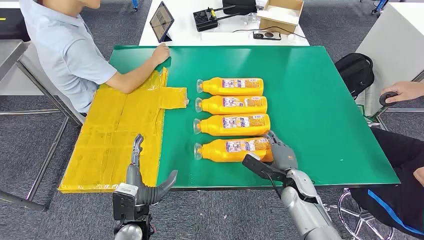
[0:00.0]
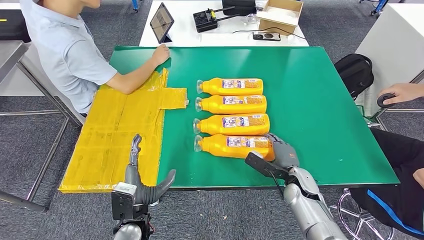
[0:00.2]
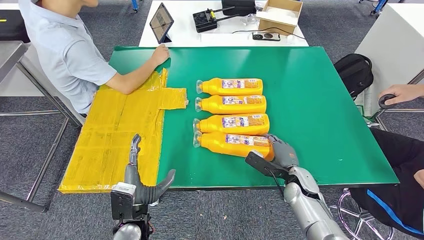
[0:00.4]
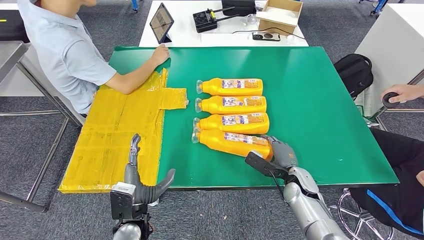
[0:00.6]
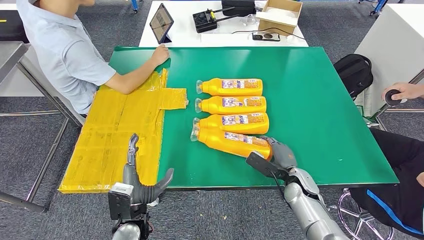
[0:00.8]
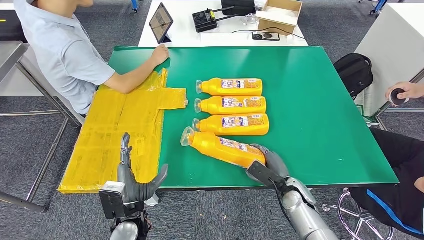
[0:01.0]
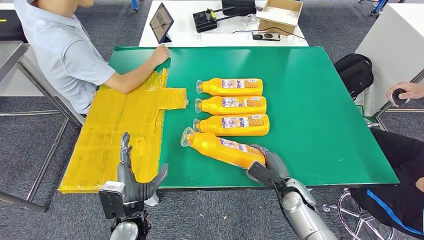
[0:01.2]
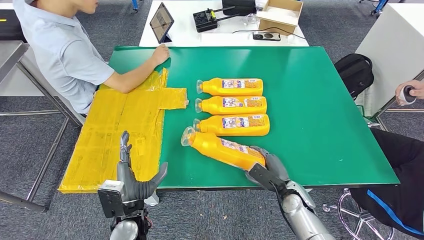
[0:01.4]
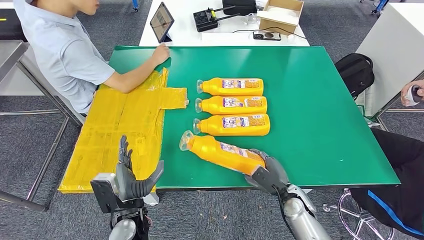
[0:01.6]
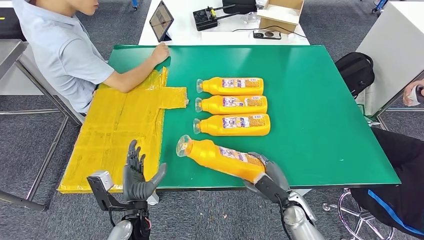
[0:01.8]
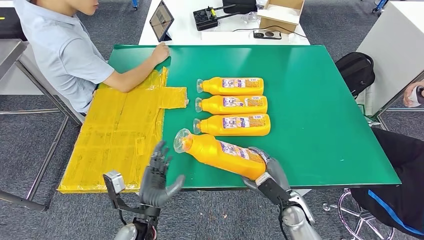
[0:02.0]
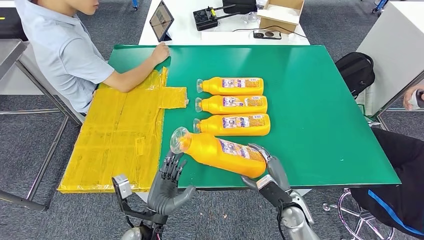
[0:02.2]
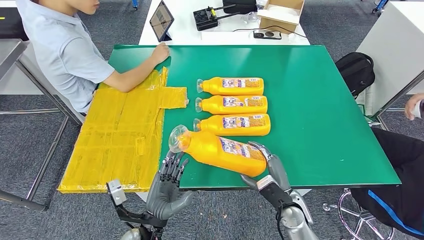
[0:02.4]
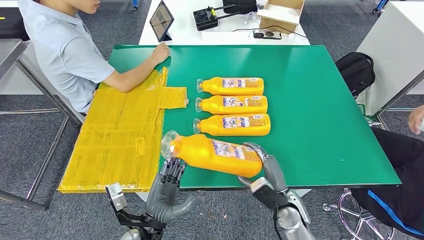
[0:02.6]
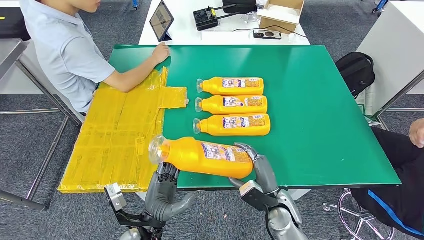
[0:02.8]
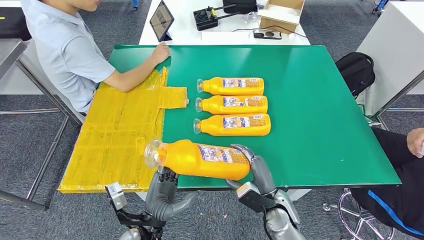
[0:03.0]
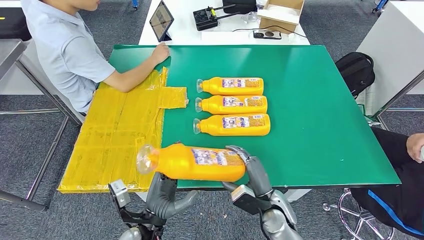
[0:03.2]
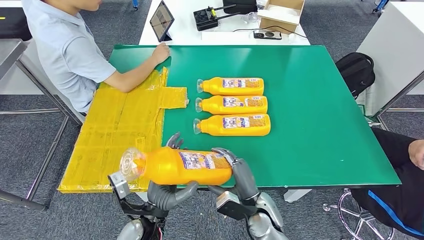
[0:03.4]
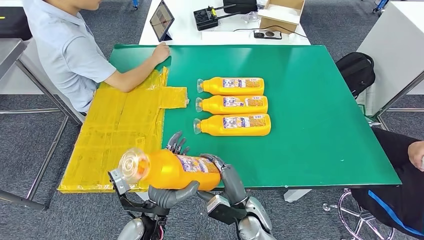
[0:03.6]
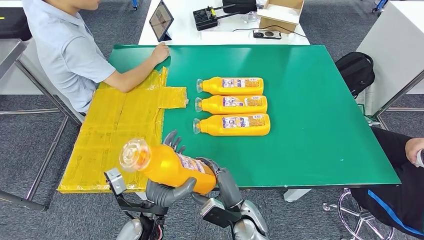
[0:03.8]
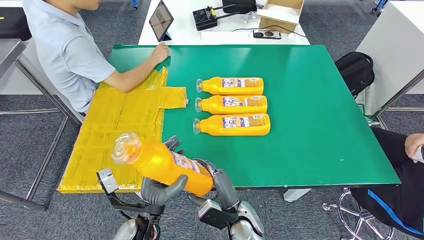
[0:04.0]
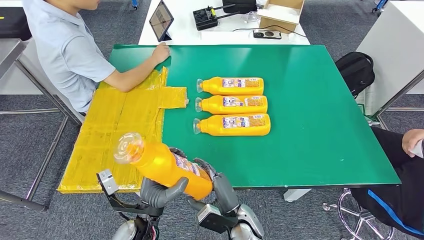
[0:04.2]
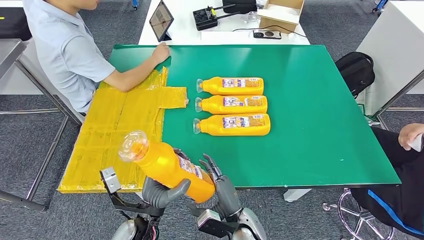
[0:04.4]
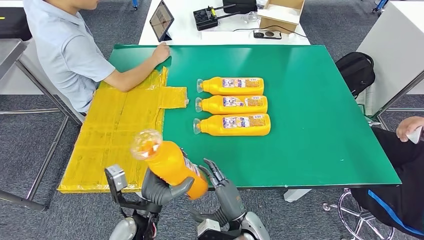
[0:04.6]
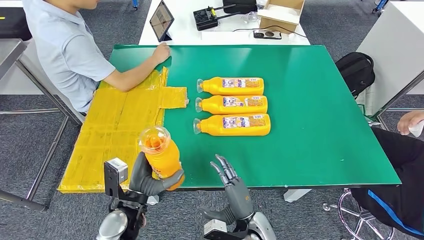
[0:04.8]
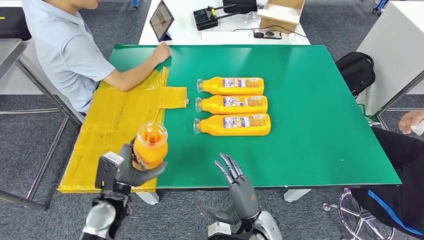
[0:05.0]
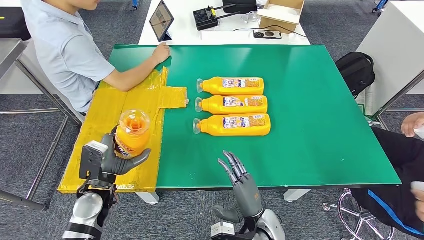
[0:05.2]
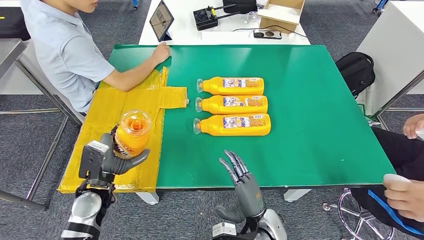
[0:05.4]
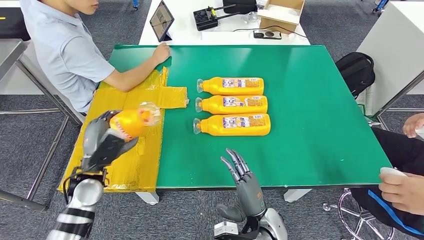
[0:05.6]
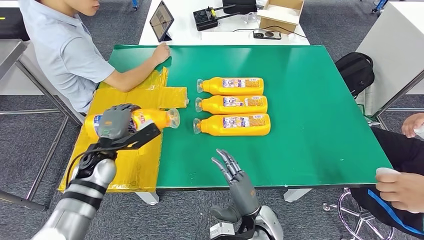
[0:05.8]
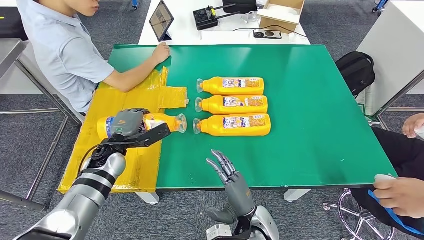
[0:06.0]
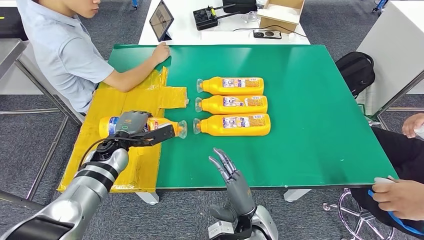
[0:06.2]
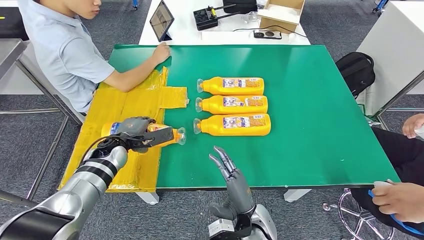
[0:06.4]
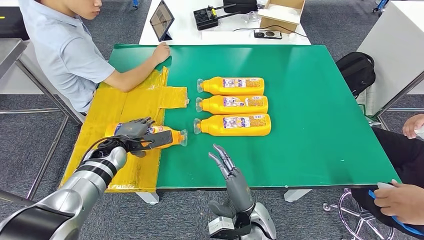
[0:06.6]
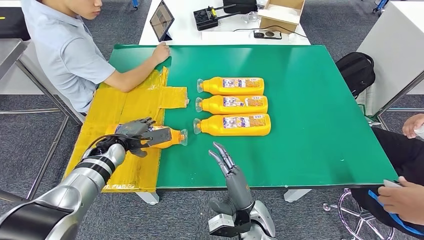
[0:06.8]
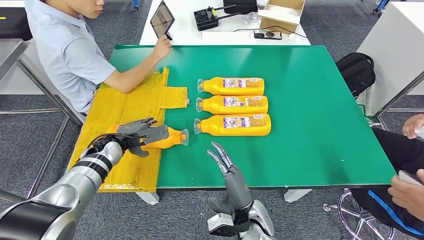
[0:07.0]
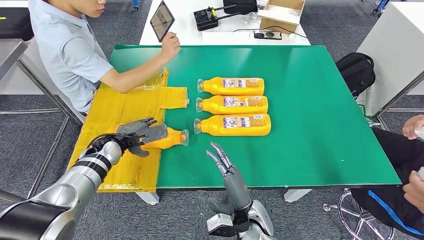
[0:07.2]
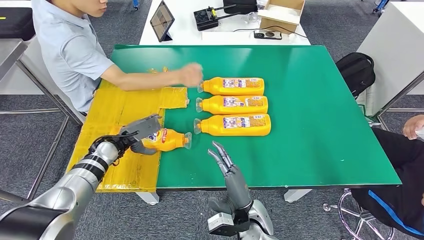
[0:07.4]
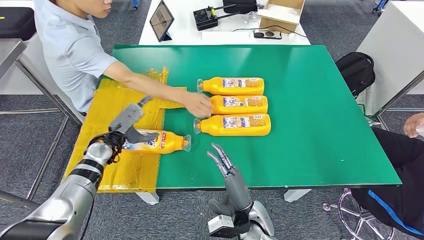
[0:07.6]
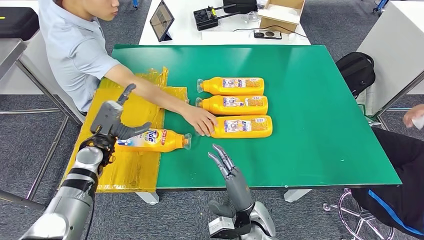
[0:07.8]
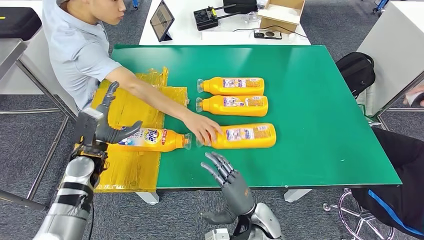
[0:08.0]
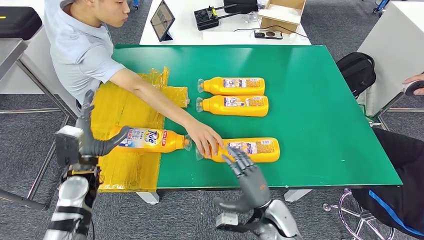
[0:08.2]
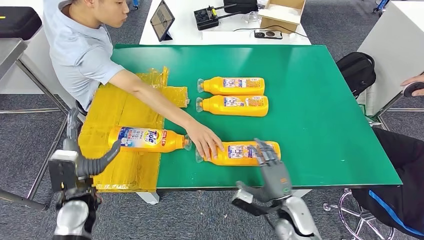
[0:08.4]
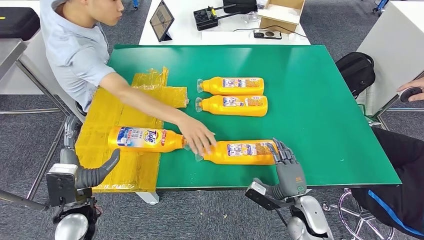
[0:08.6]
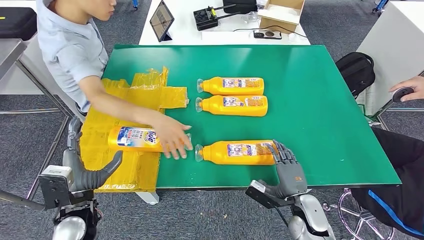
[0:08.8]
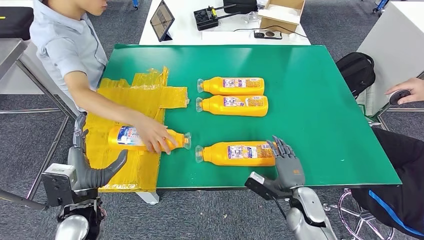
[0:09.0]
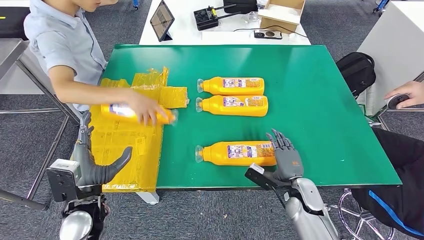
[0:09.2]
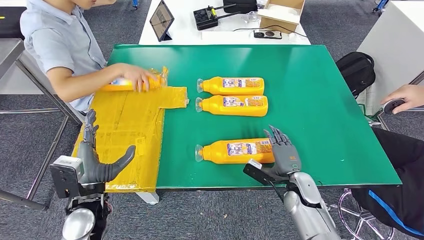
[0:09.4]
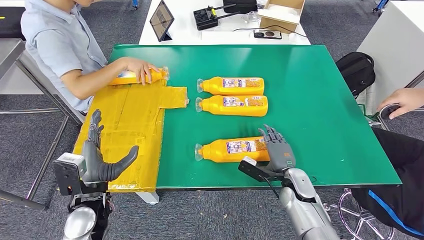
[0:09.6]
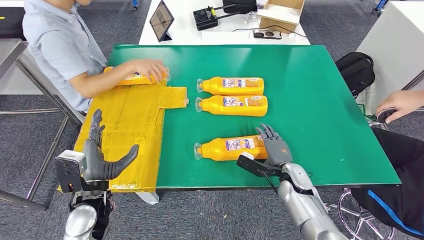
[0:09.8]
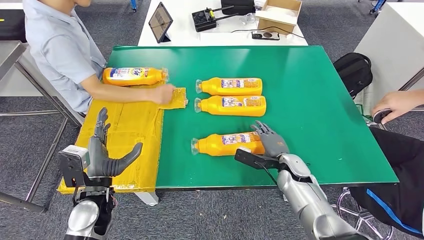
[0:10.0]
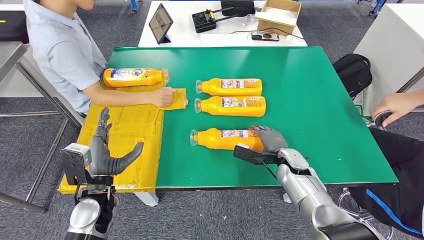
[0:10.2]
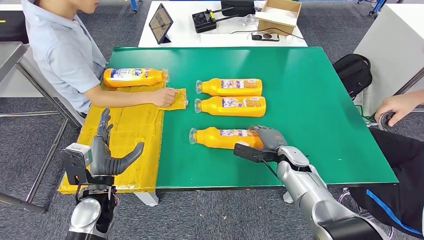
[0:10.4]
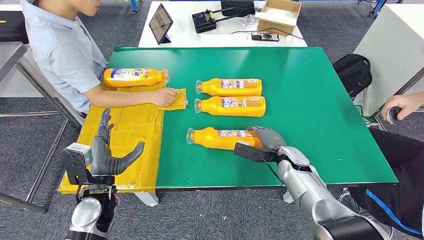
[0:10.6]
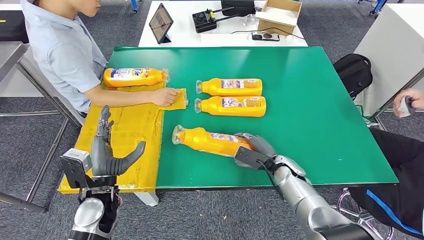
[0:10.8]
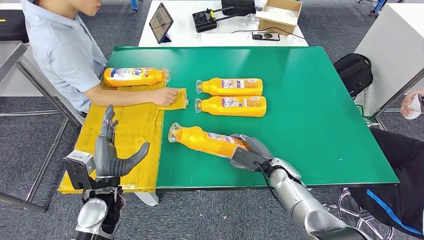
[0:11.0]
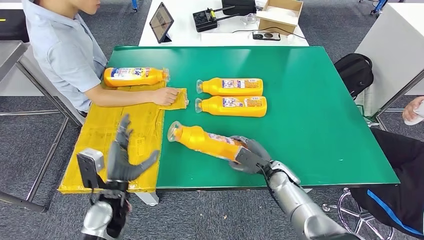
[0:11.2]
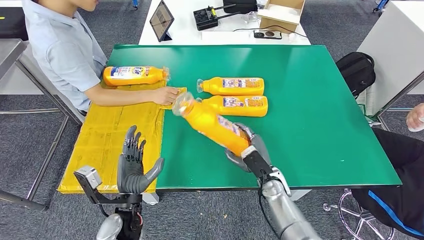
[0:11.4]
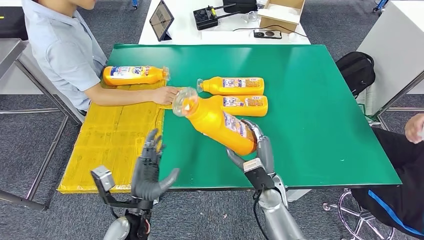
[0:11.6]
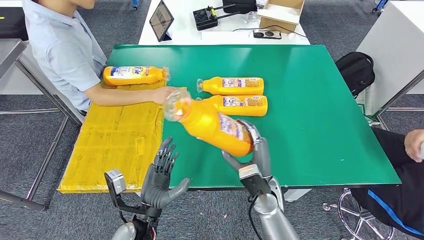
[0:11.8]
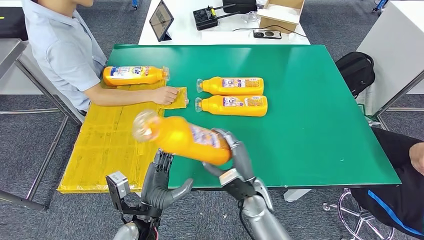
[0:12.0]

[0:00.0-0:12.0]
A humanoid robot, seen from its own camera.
Step, 0:00.0 to 0:03.4: Take the bottle from the table.
Step, 0:03.6 to 0:07.8: Flip the bottle to face forward.
0:01.6 to 0:03.0: The right hand shifts roughly 5 cm to the left.
0:03.0 to 0:04.4: The right hand heads to the left, covering about 10 cm.
0:04.4 to 0:06.0: The left hand travels forward and to the left by some 20 cm.

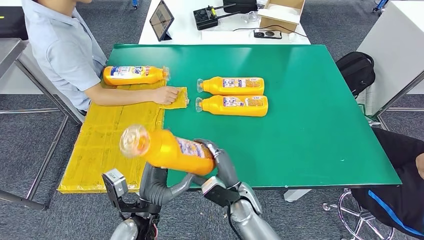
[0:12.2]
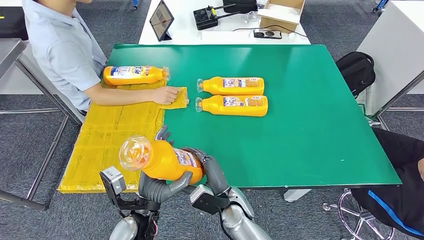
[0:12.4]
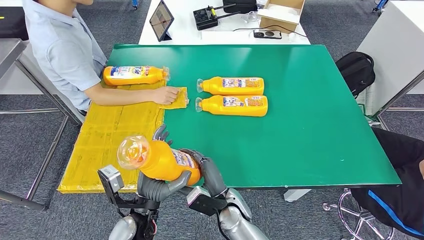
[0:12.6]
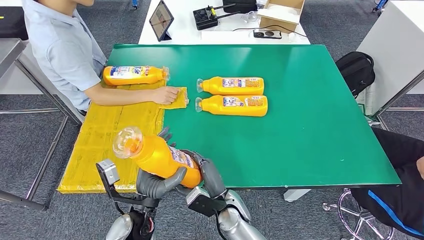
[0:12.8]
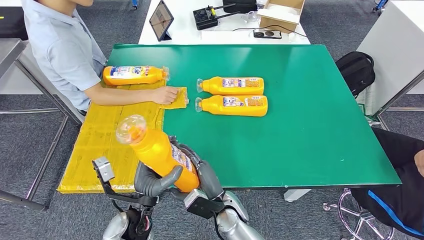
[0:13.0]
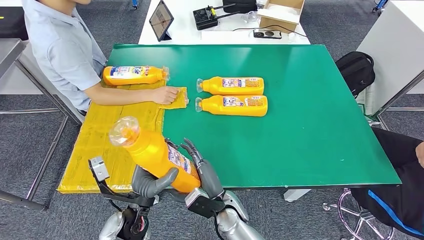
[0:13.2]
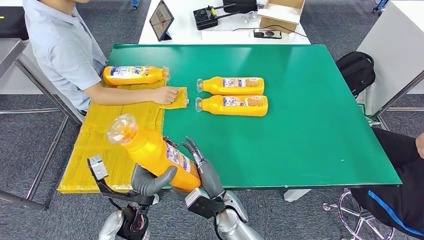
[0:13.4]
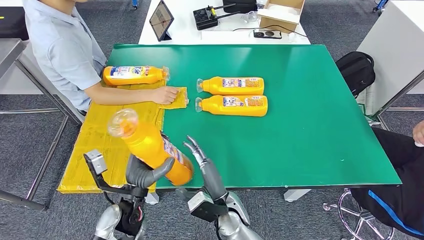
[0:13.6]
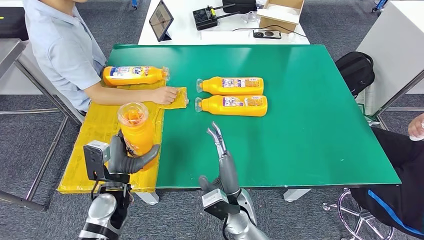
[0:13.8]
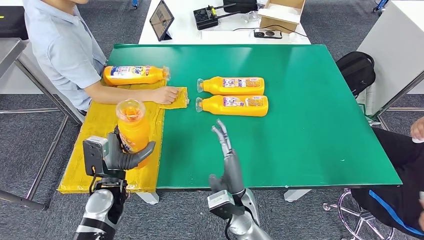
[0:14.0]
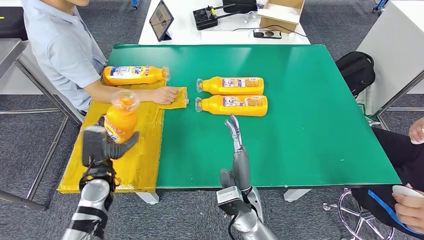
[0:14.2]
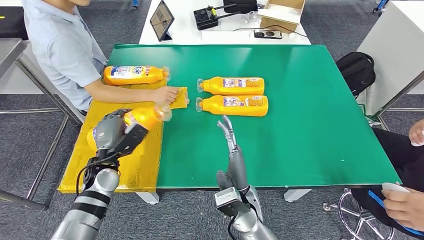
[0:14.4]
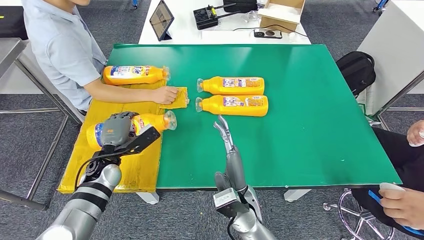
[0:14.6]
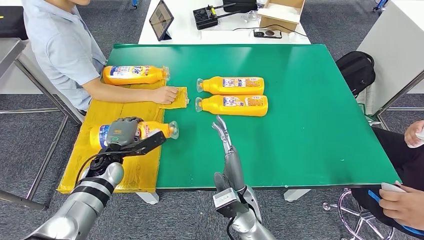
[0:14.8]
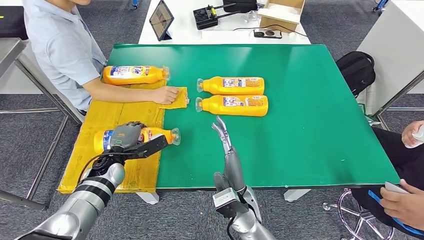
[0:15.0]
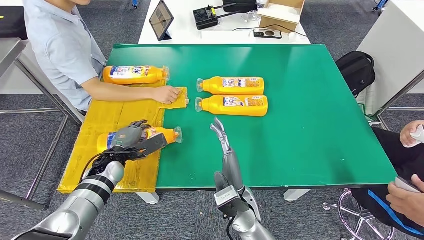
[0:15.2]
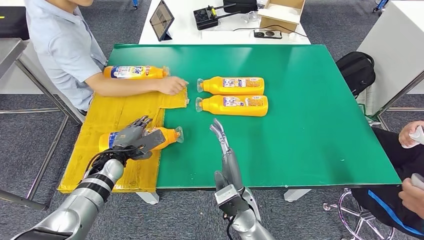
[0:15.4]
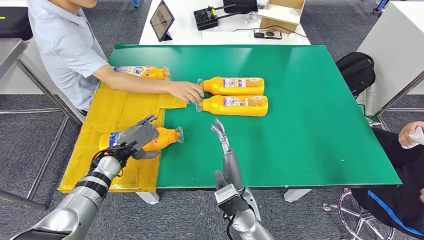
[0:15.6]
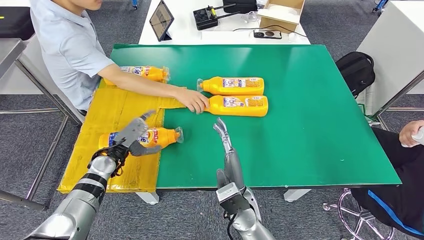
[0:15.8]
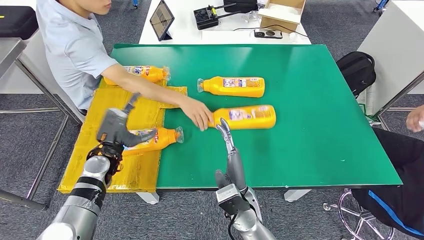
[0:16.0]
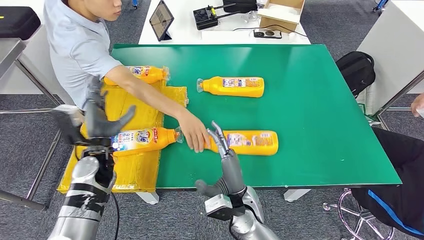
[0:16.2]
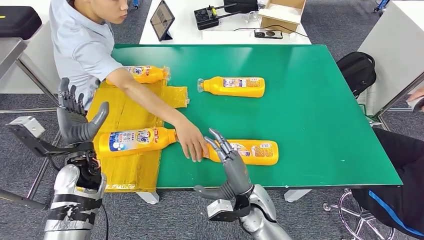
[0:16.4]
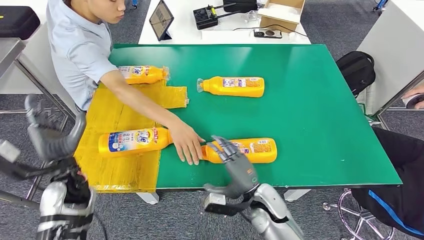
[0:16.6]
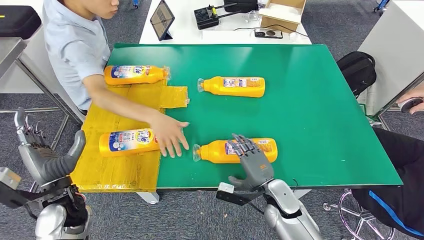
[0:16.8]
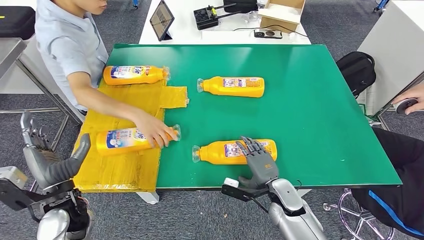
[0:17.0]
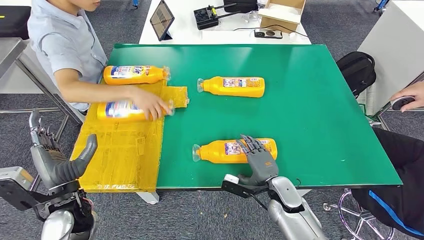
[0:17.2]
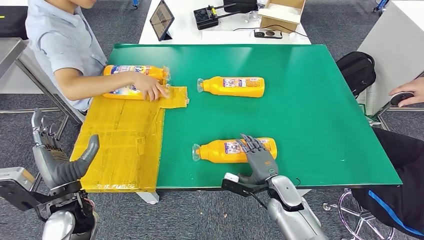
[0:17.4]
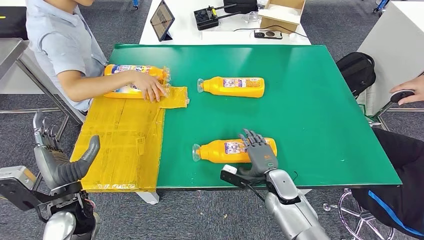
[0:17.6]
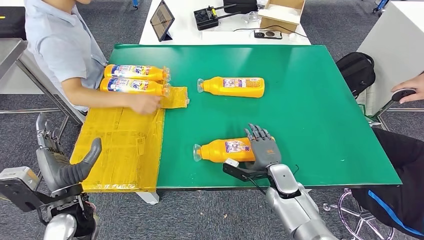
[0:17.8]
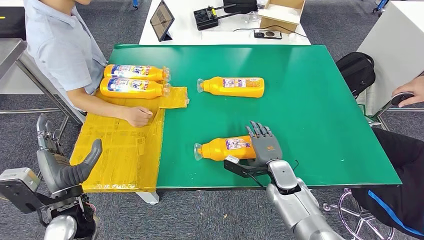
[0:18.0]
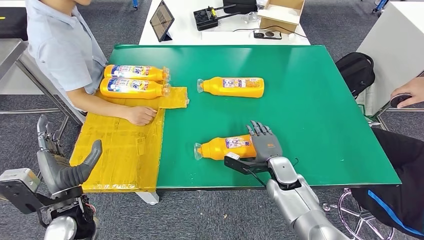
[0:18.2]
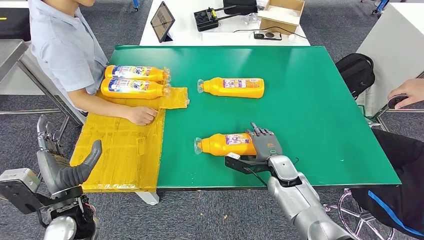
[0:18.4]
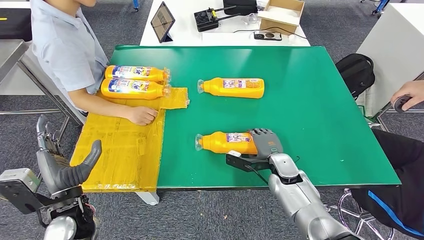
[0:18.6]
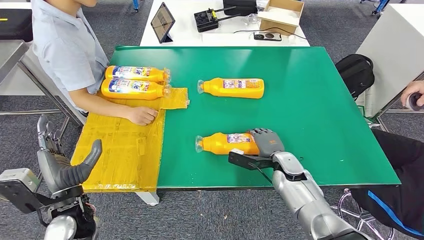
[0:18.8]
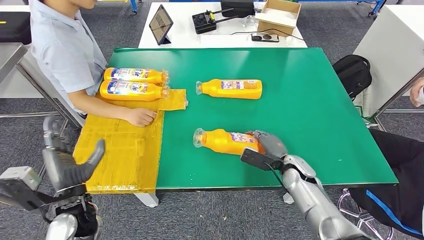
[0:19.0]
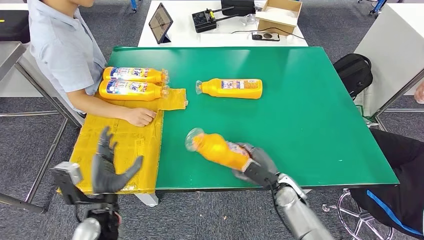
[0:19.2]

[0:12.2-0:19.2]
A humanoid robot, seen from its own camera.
Step, 0:13.0 to 0:16.4: Flip the bottle to face forward.
0:13.6 to 0:15.0: The left hand moves forward and to the left, roughly 15 cm.
